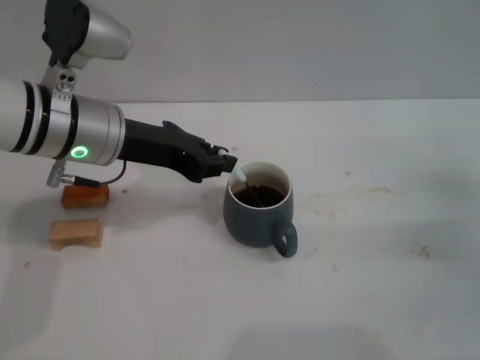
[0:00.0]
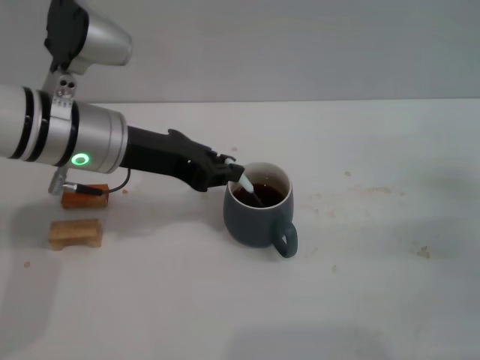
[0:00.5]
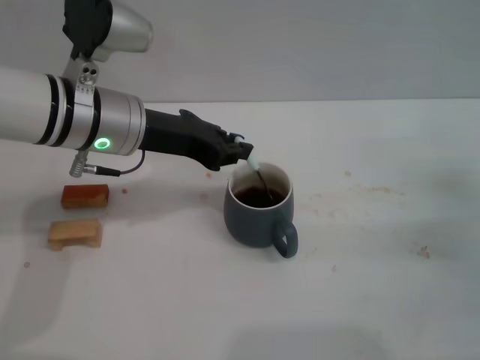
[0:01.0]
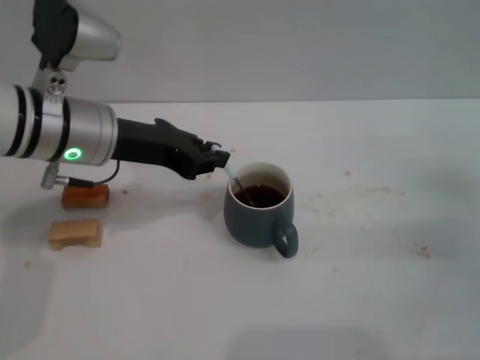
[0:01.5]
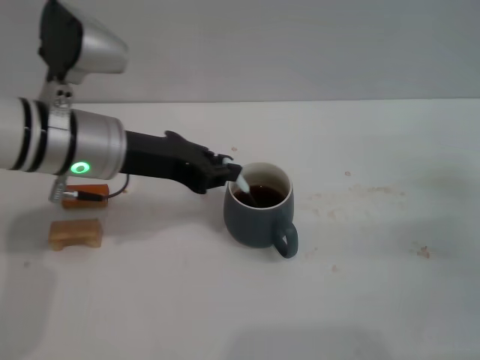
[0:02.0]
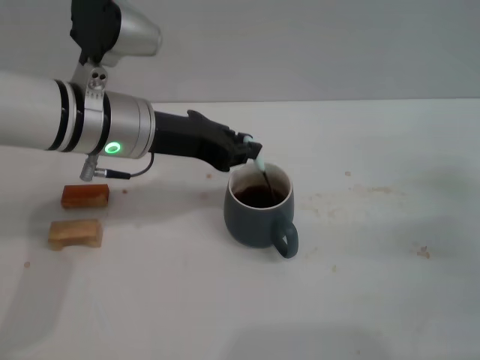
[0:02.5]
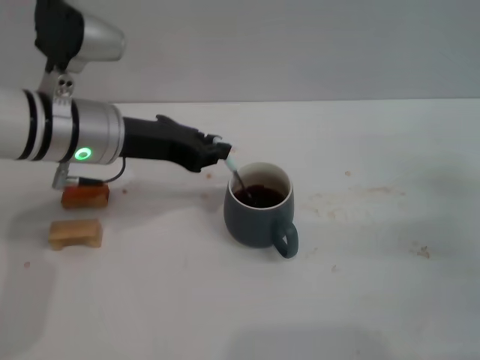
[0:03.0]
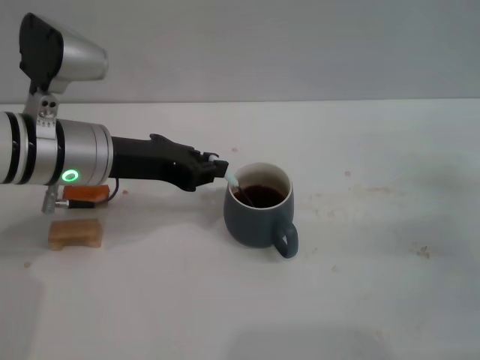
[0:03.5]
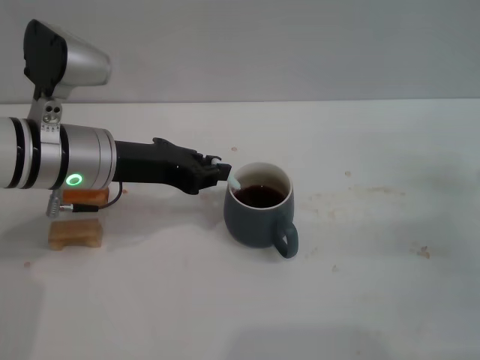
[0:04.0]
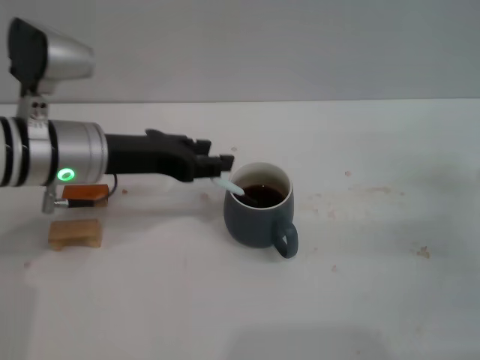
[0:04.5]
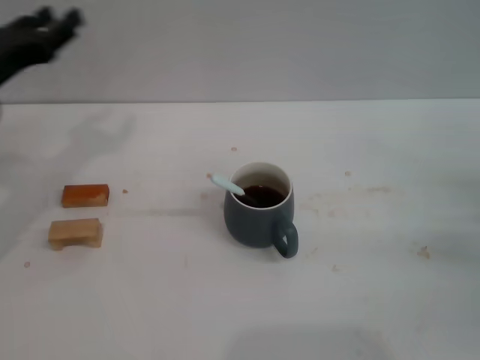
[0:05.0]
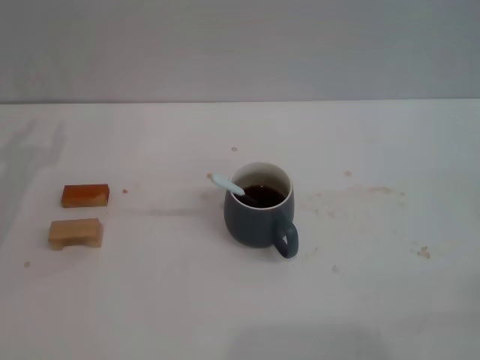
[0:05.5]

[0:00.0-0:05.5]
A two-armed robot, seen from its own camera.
Task of the whole recording: Move the grey cup to the center, lift the blue spoon, stir it three times in the cup, and put the spoon into the cup.
Step, 0:00.0 to 0:04.5: Stir the coffee in the cup with the left gripper.
0:00.0 to 0:03.5: The grippers make only small movements.
0:03.5 to 0:05.5: The left gripper is displaced to the left and downward by about 15 cm, and opens up, while the right gripper moves to the right and backward, approximately 10 cm.

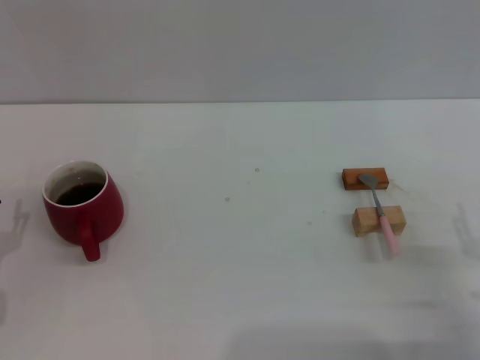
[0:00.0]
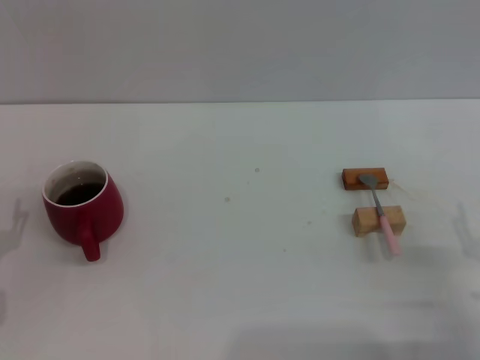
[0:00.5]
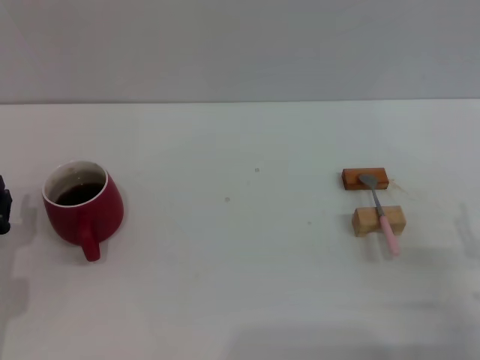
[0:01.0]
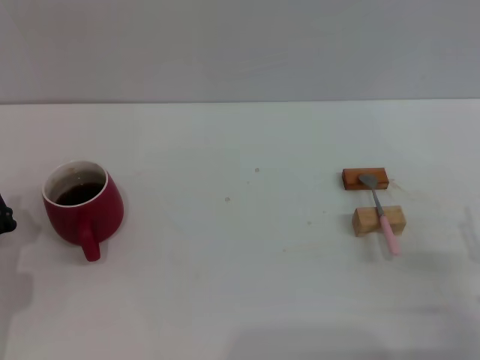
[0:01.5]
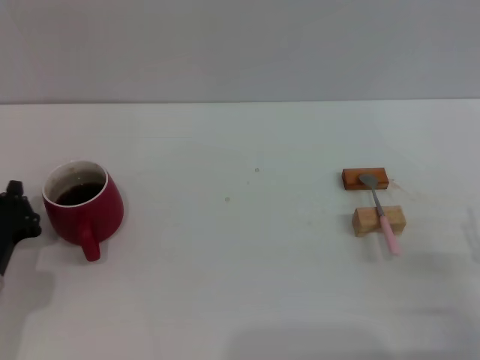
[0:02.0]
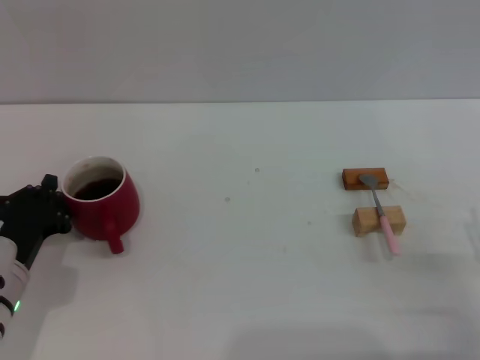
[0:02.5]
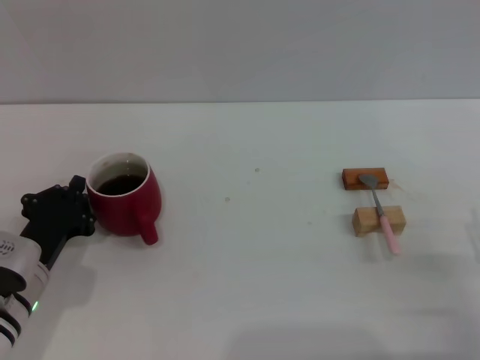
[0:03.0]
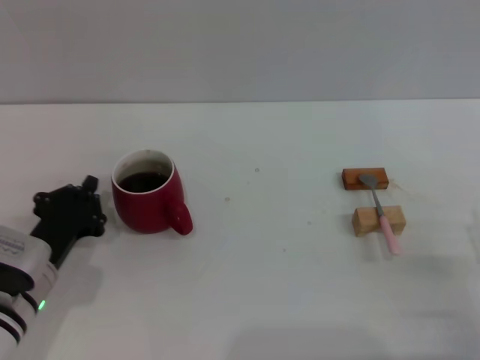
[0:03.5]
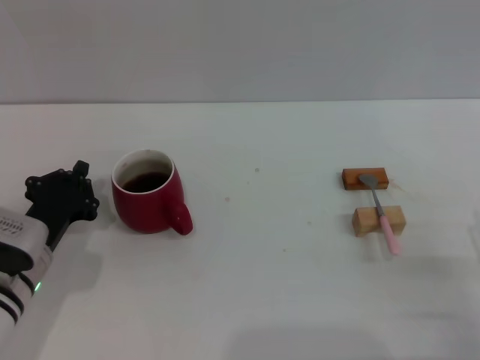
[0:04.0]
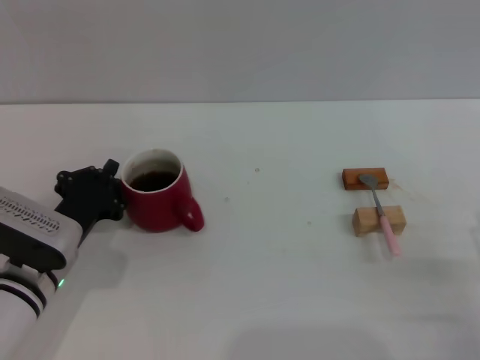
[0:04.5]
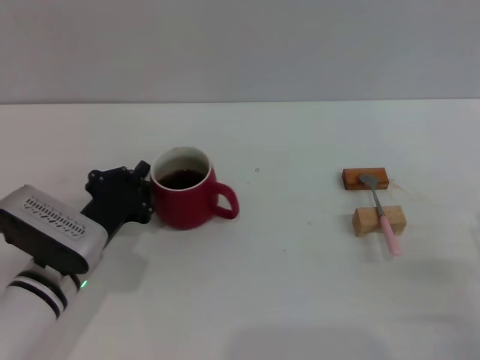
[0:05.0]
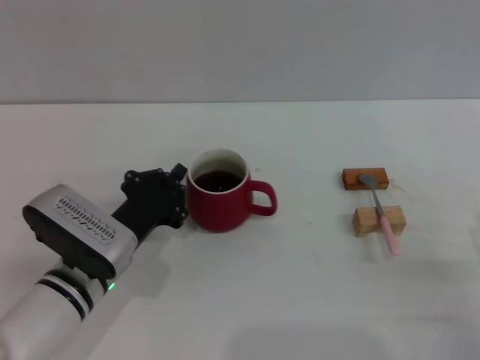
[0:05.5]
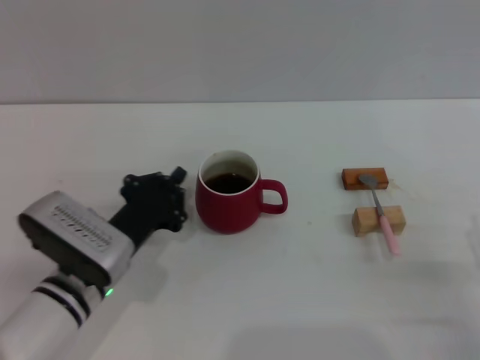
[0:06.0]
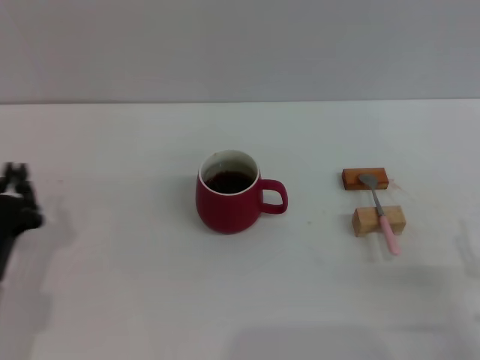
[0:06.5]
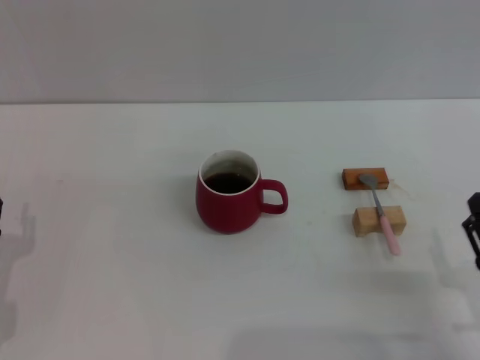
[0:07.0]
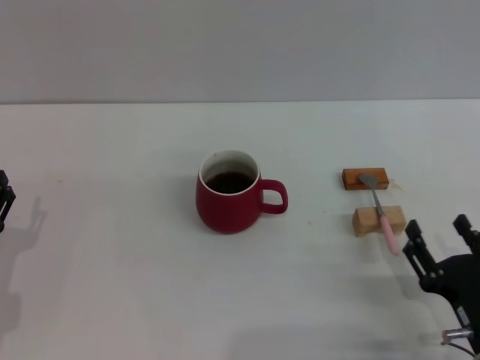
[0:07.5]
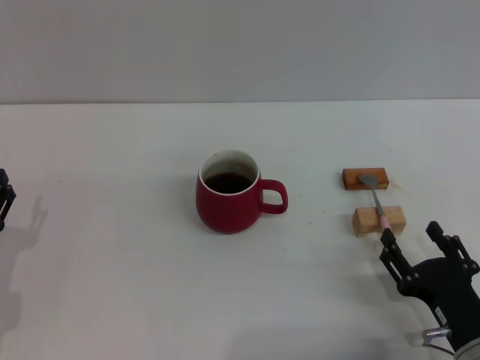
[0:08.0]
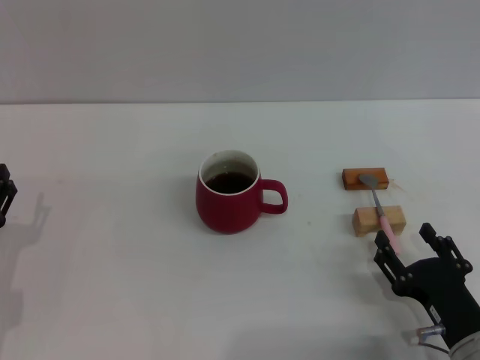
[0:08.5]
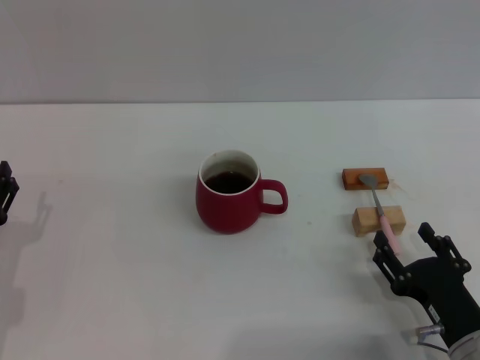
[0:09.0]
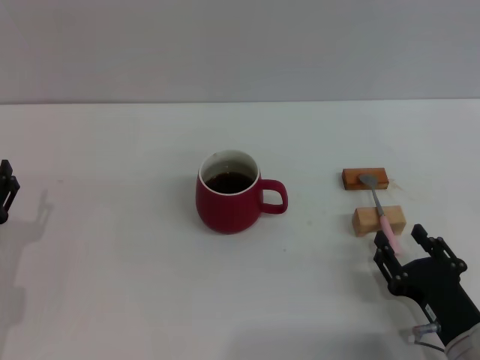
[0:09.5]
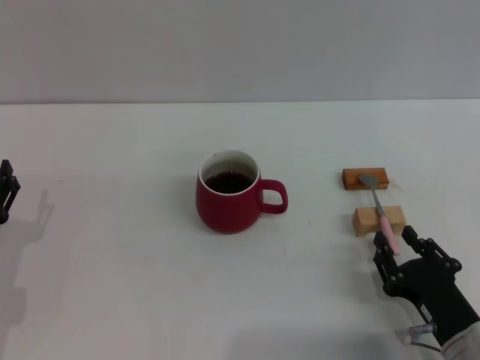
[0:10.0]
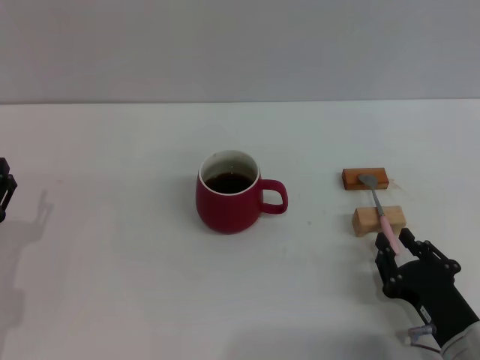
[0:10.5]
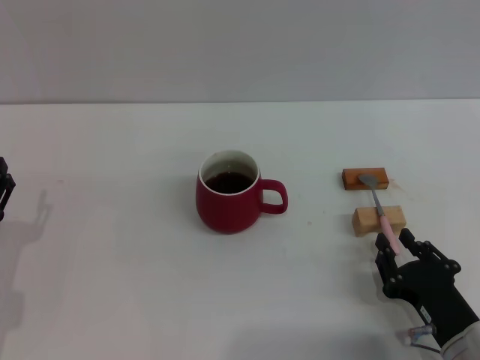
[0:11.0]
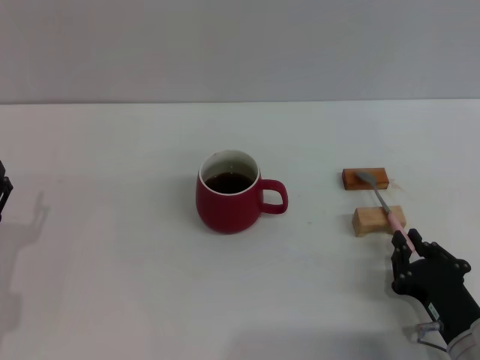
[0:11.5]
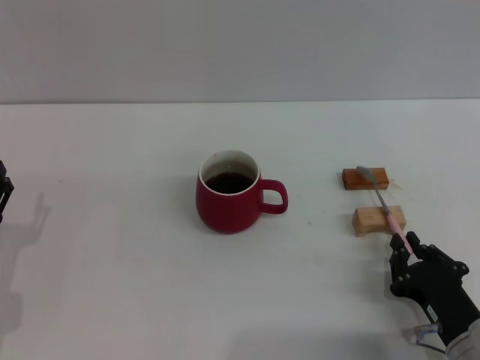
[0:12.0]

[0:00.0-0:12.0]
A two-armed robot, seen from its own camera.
Task of the whole recording: Move the red cup to the center, lift the pink spoon, stir it three times in the cup, and put the spoon into the cup.
Step, 0:00.0 to 0:06.0: Move the cup with coffee to the center of view with the left gripper.
0:00.0 to 0:02.0: The left gripper closes its fingers.
0:02.0 to 0:04.0: There are only small adjustments of the grippers.
0:04.0 to 0:06.0: The left gripper is displaced to the right by approximately 5 cm.
0:06.0 to 0:08.0: The right gripper heads to the left, covering roughly 5 cm. The left gripper travels to the left and backward by some 15 cm, and opens its fingers.
0:08.0 to 0:10.0: The right gripper closes up.
0:10.0 to 0:12.0: The right gripper closes up.

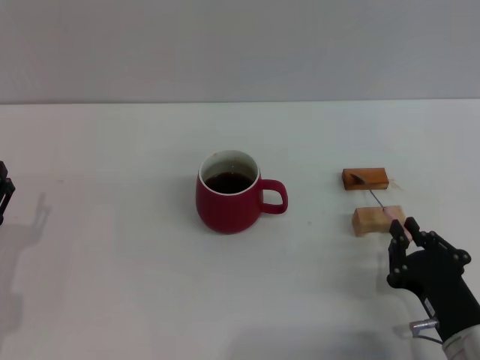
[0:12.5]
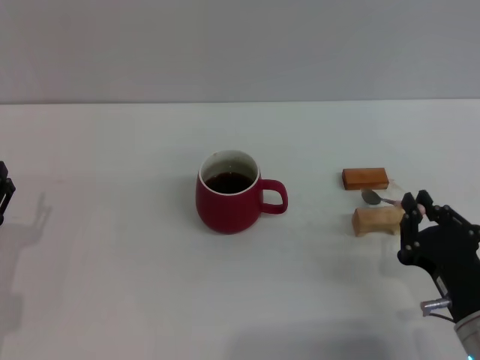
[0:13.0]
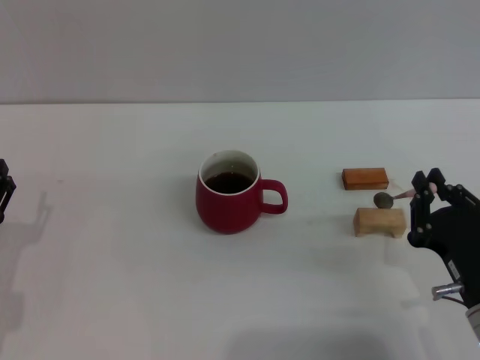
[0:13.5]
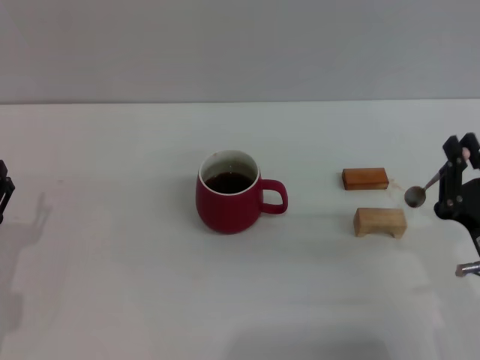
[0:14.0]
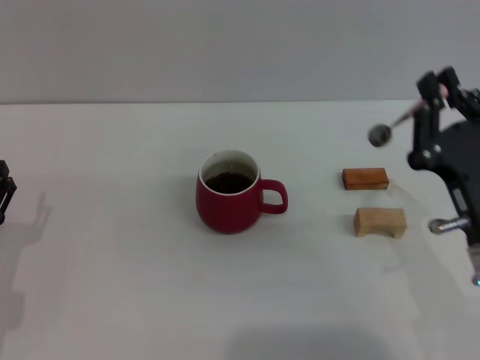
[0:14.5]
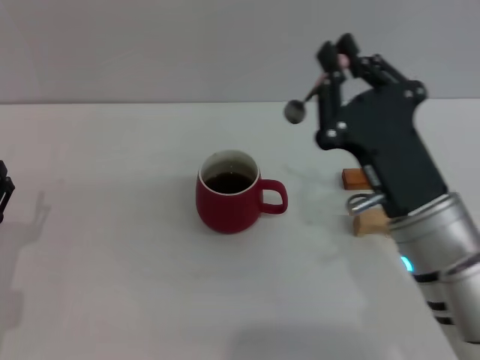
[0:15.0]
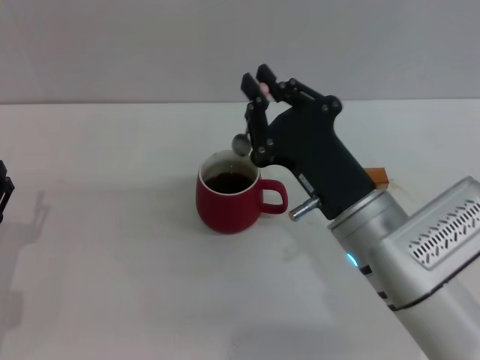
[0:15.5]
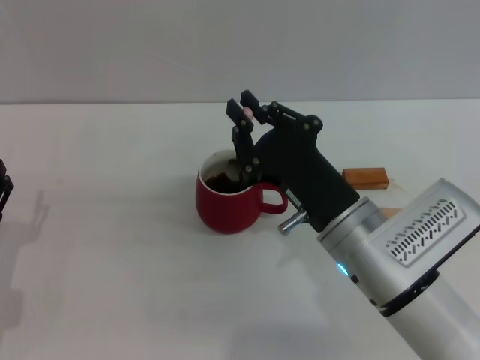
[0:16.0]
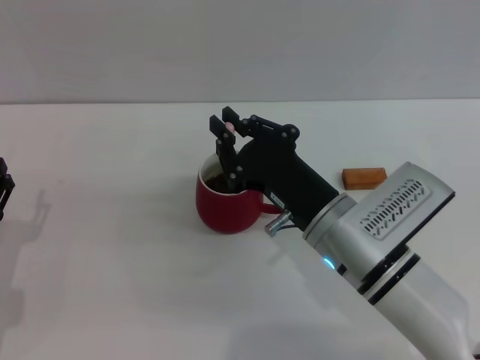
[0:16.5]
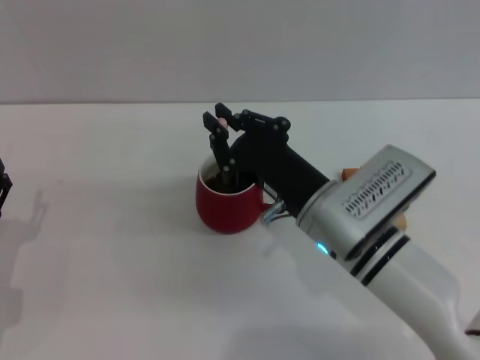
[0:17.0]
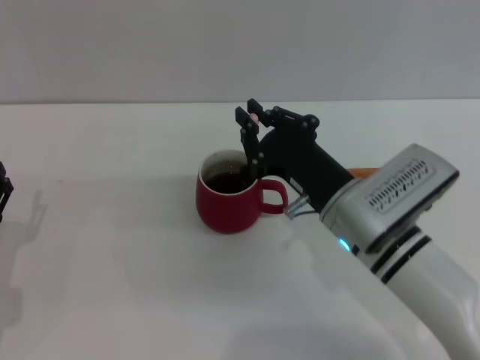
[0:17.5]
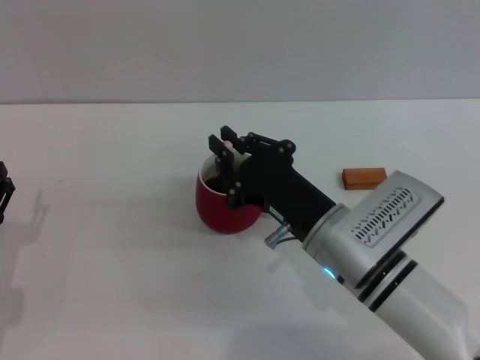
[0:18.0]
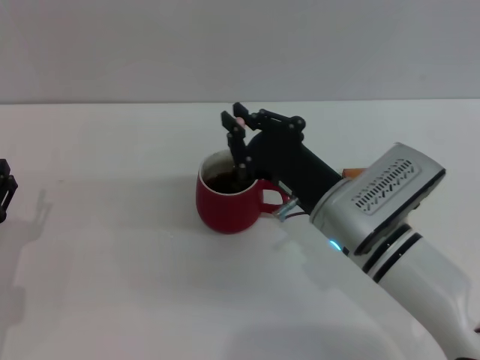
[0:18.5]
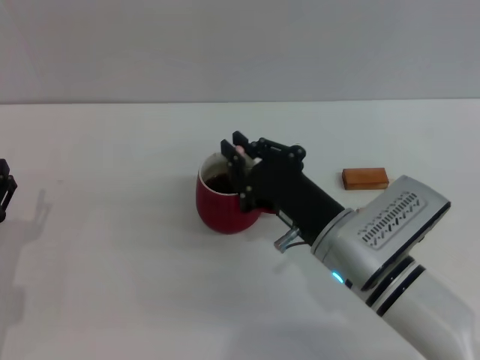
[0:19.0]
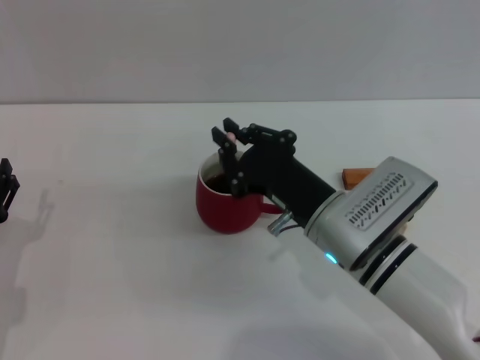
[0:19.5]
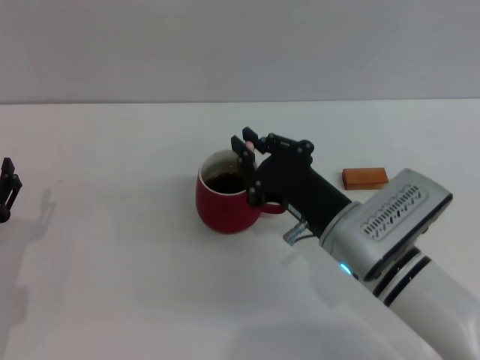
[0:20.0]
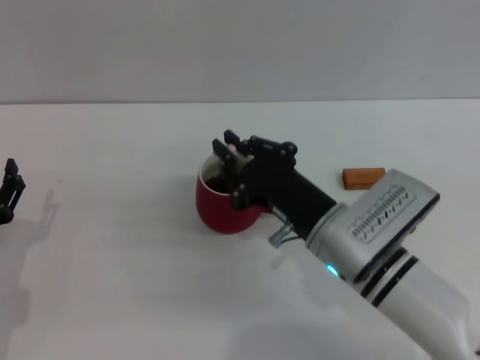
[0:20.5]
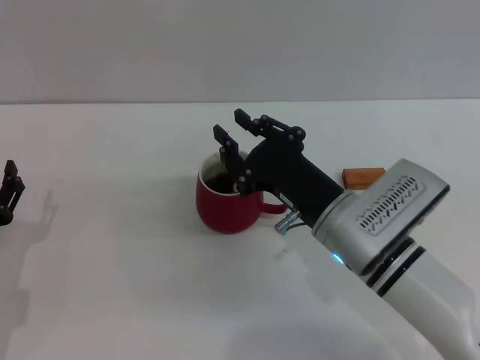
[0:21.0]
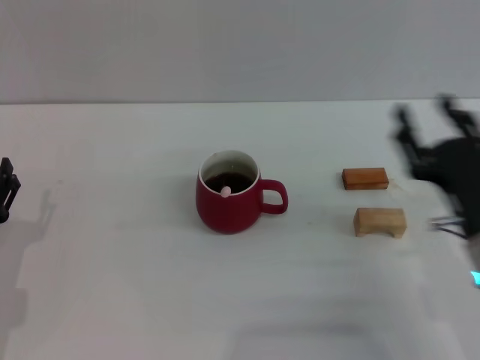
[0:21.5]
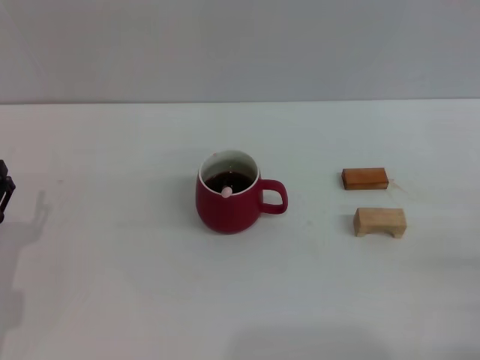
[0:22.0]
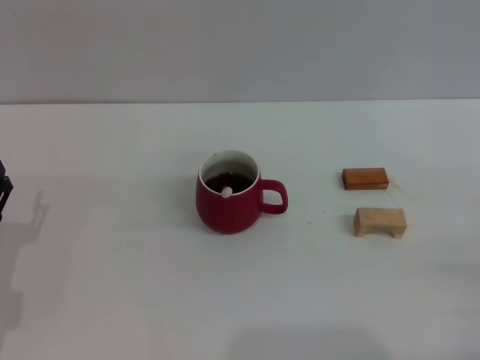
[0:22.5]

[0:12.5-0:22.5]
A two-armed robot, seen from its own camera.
Task of the whole recording: Move the red cup to the center, lift the pink spoon, stir it three times in the cup, and put the spoon into the cup.
Step, 0:14.5 to 0:21.0: Stir the coffee in the cup with the right gripper.
0:12.5 to 0:14.5: The right gripper travels upward by about 10 cm.
0:14.5 to 0:16.5: The right gripper is displaced to the left and forward by about 10 cm.
0:16.5 to 0:20.5: The grippers stay close to where they were, moving slightly.
0:20.5 to 0:22.5: The right gripper travels to the right and backward by roughly 25 cm, and opens up.
